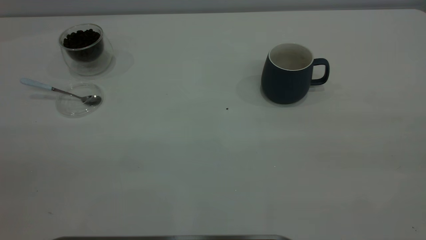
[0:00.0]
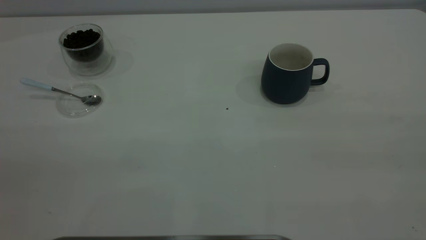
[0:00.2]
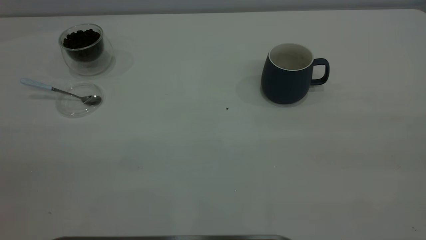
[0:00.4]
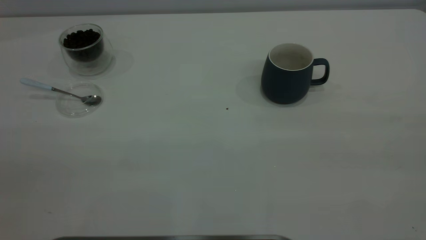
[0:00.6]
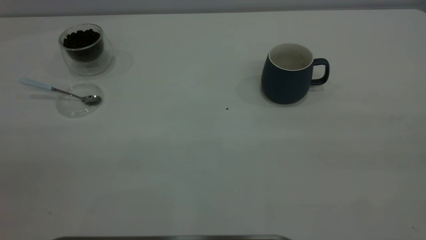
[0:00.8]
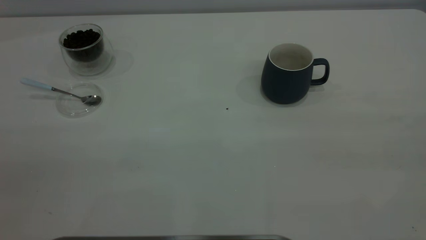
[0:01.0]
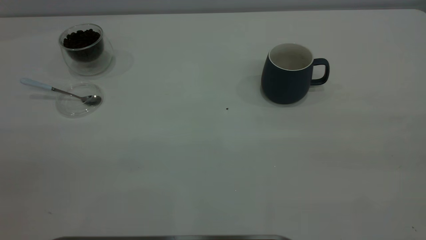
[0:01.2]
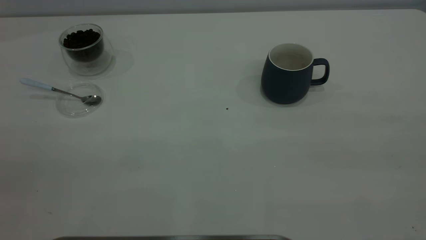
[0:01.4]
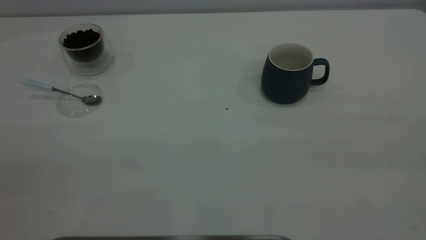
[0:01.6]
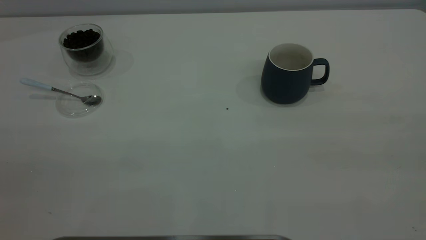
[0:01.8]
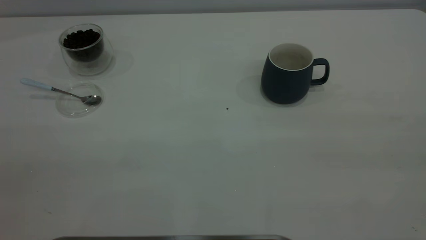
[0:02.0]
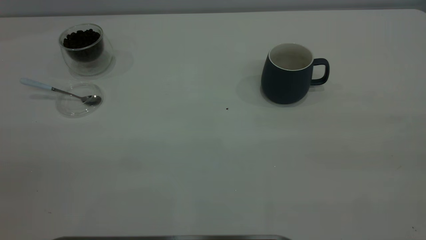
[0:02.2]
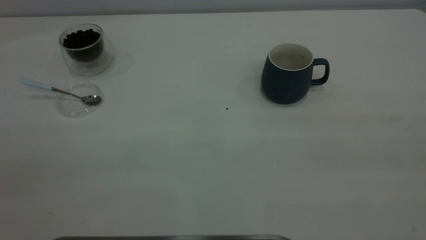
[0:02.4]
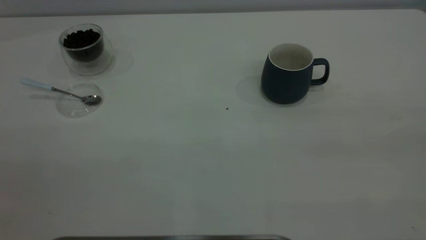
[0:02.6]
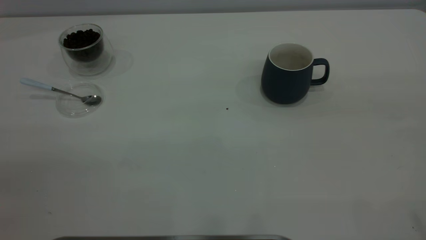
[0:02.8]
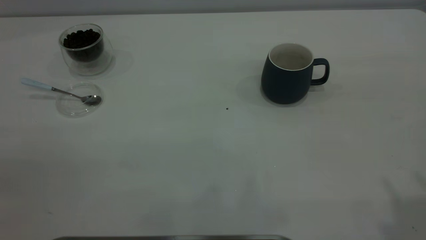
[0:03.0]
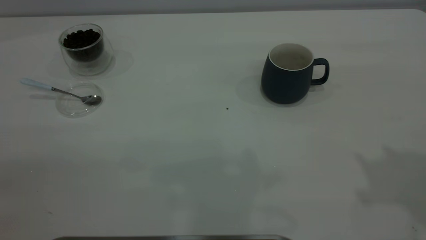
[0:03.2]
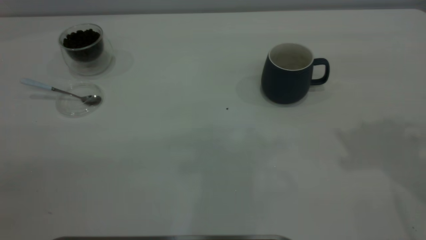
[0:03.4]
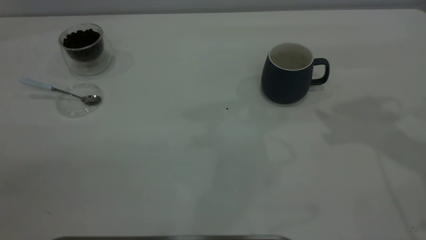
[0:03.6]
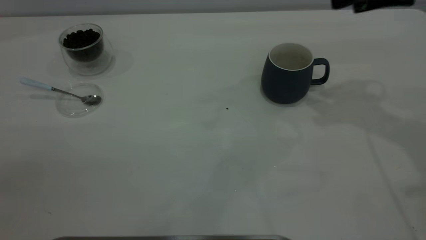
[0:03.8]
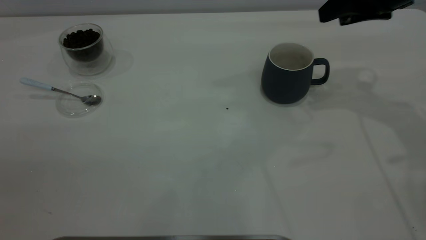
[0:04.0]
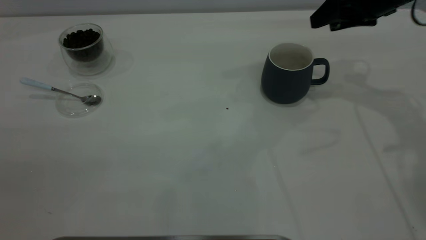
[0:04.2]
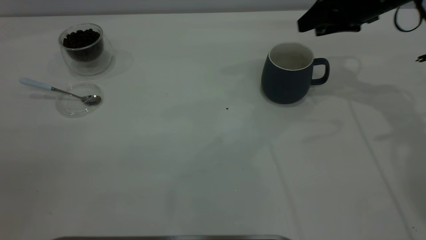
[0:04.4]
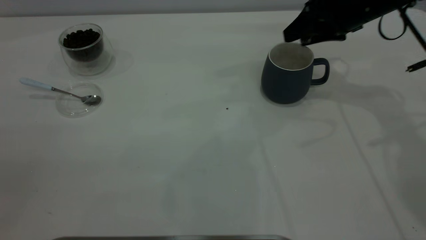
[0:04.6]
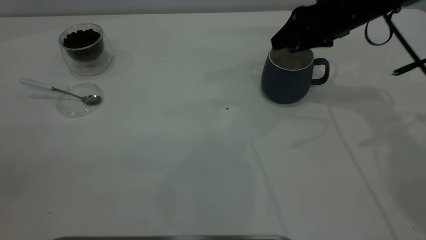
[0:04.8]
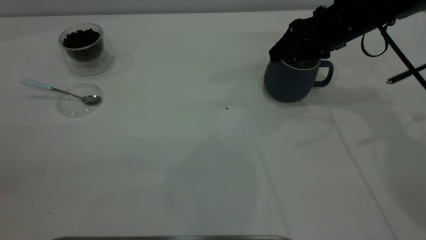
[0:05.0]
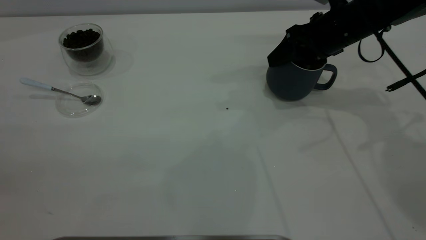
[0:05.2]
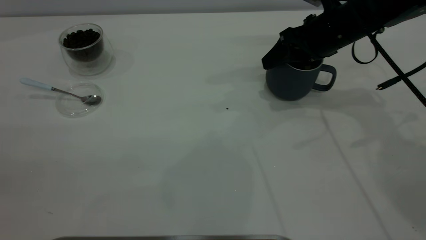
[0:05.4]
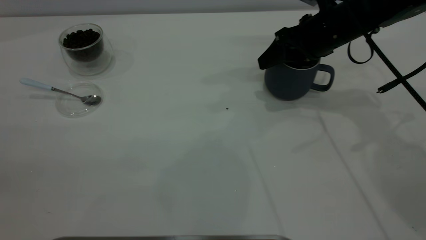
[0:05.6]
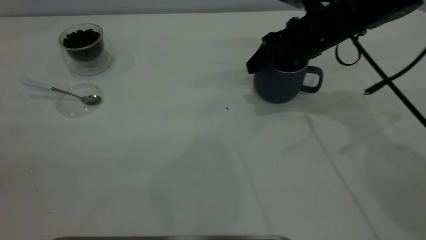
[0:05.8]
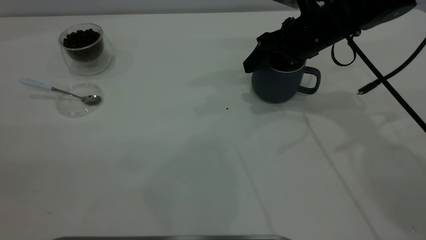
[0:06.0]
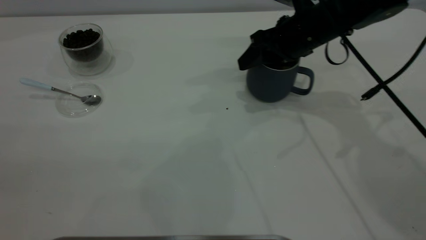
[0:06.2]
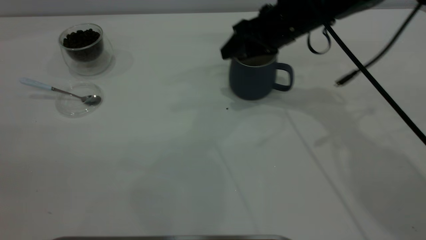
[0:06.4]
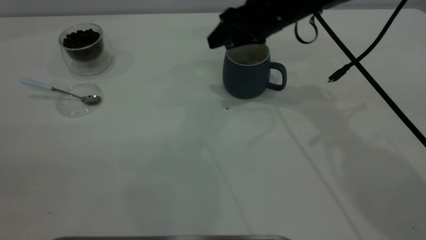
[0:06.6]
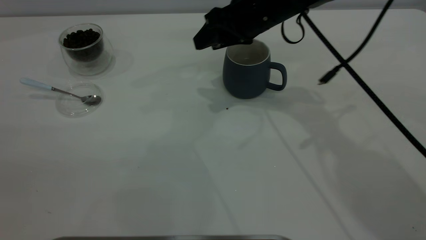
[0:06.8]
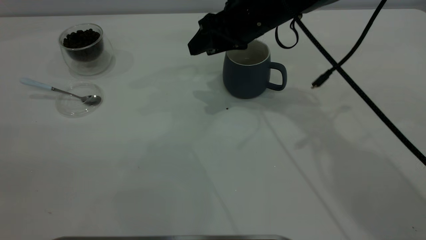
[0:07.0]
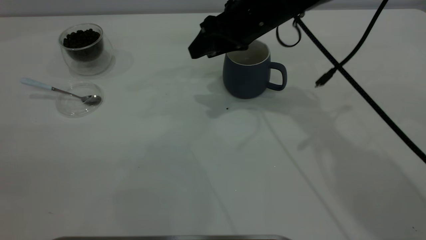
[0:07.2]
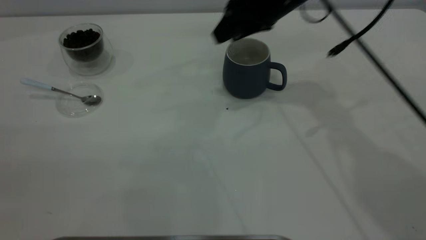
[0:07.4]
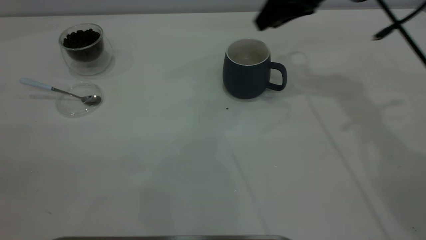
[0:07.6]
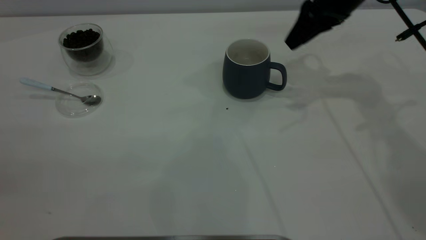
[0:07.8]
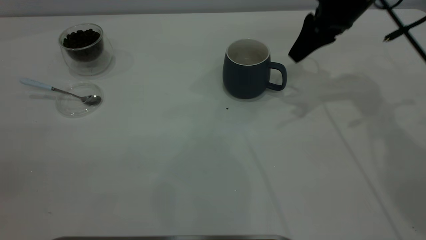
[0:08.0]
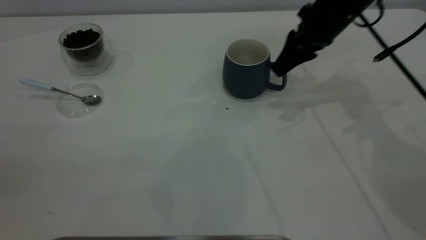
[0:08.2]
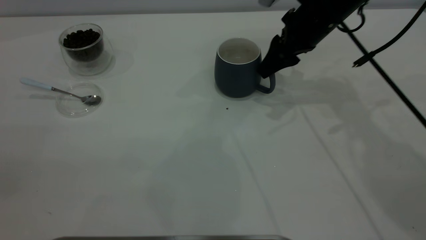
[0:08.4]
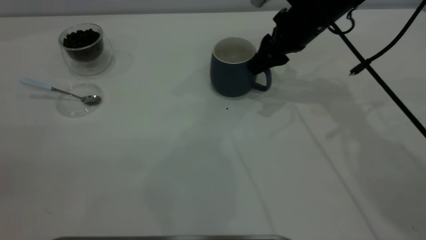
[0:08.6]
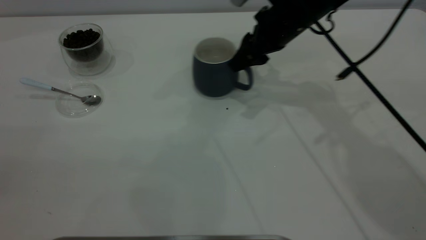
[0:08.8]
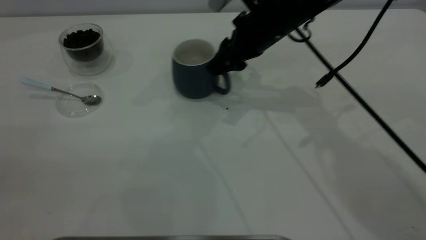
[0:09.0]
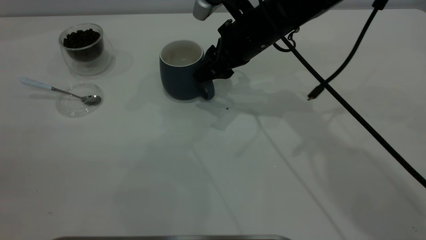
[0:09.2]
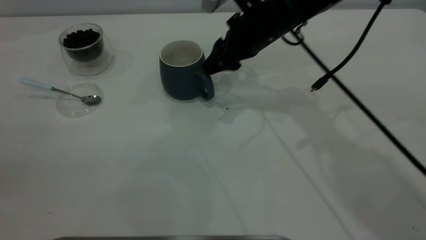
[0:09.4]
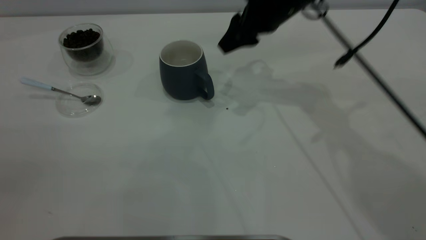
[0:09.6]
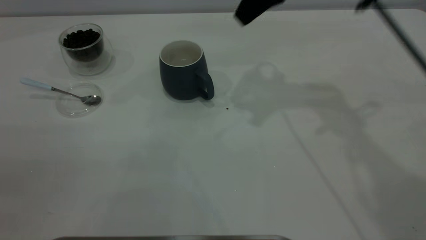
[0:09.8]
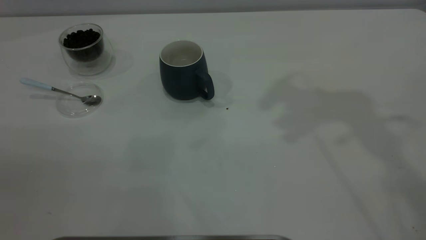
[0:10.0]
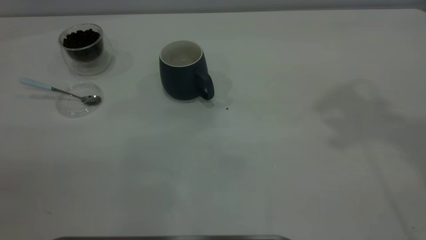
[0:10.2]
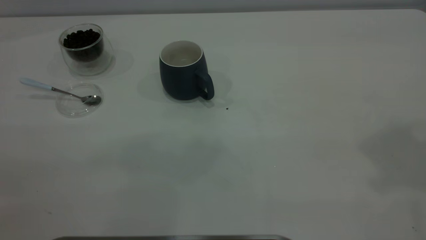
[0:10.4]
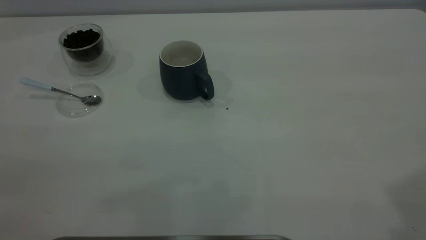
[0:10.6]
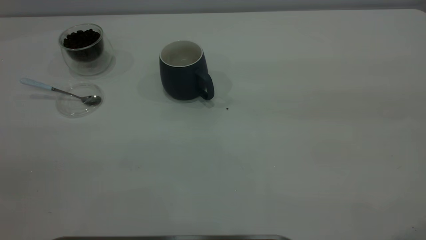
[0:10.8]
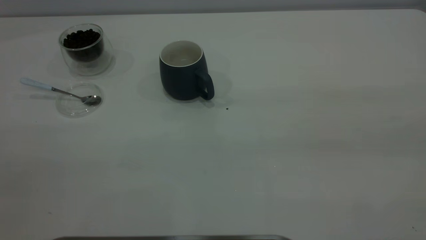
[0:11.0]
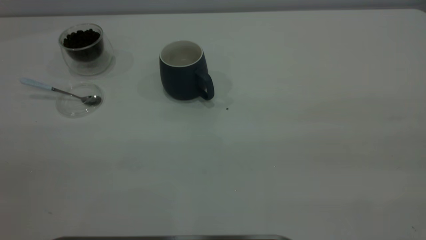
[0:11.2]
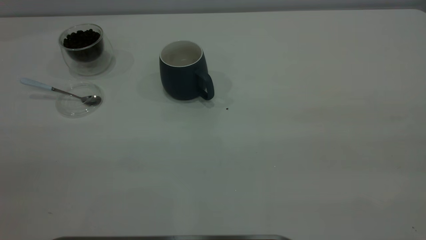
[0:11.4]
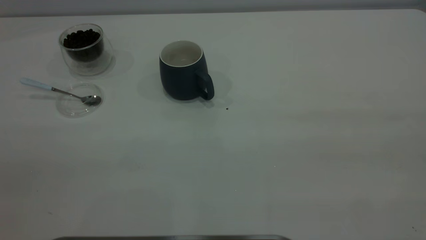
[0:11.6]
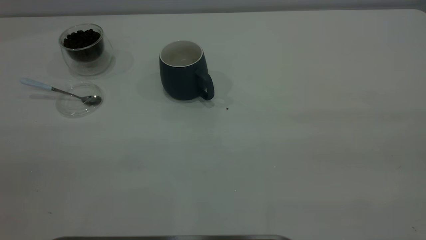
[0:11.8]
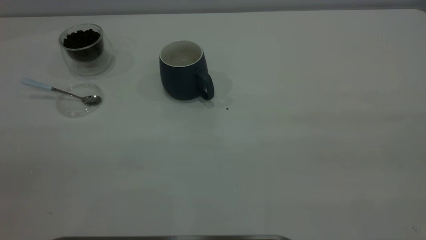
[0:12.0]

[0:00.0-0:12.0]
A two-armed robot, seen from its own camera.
Task of the whole recording: the right gripper place the grey cup in the center of the table, the left gripper take the blue spoon from the cup lid and scoop out the coffee beans from the coffee cup and put them into the grey cup, the left gripper put the spoon back into the cup lid.
Step, 0:00.0 to 0:07.4: Move the cup to the center of view.
0:00.0 to 0:01.6: The two grippers keep their place.
0:03.0 to 0:04.4: The right gripper is displaced forward and downward by approximately 35 cm.
0:04.4 to 0:06.0: The right gripper heads to the left, covering approximately 10 cm.
0:06.0 to 0:07.6: The right gripper heads upward, covering about 10 cm, and goes to the left and returns, about 10 cm each way.
0:07.6 to 0:09.0: The right gripper is displaced to the left and downward by roughly 10 cm.
0:09.0 to 0:10.4: The right gripper travels upward, to the right and backward by approximately 50 cm.

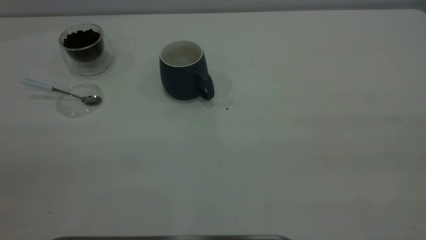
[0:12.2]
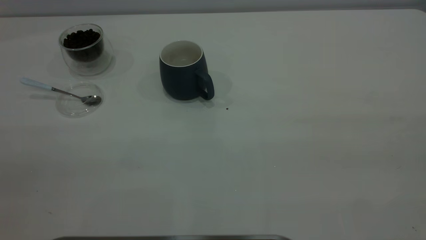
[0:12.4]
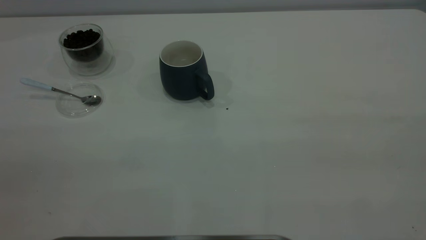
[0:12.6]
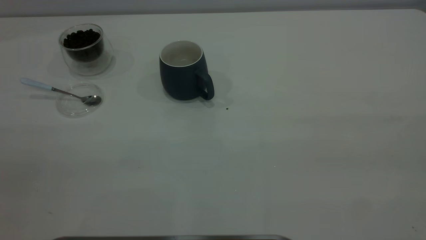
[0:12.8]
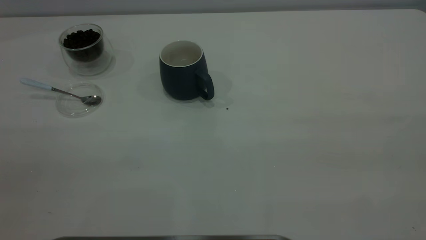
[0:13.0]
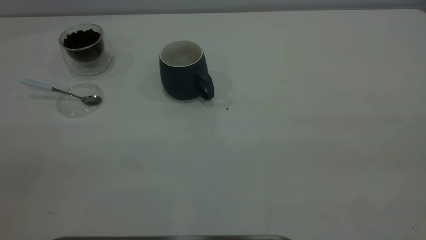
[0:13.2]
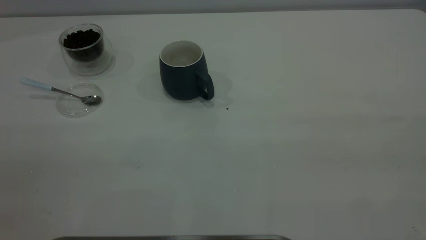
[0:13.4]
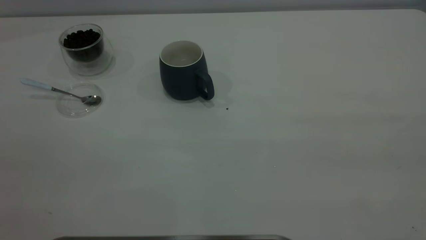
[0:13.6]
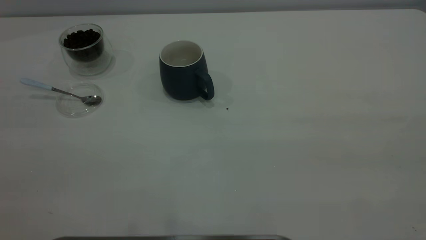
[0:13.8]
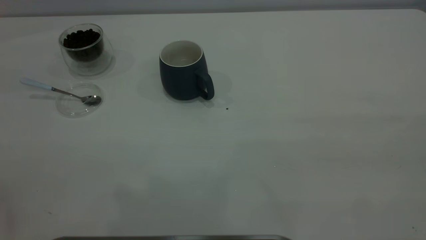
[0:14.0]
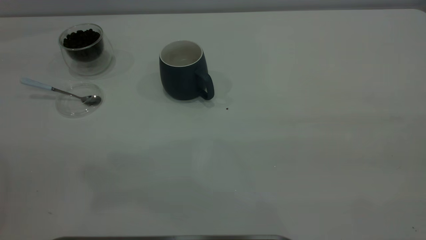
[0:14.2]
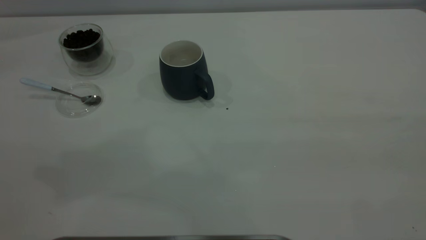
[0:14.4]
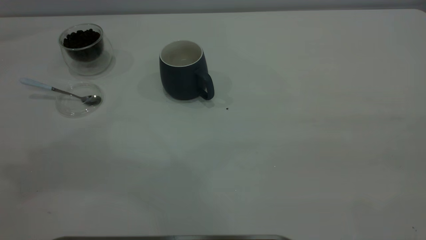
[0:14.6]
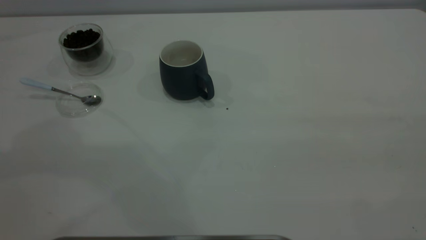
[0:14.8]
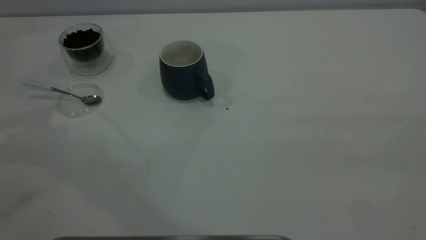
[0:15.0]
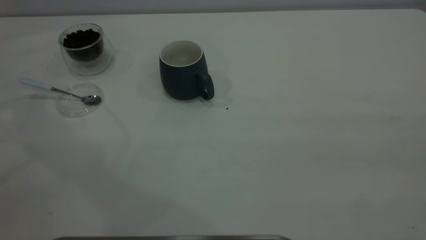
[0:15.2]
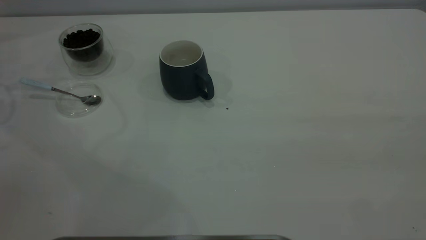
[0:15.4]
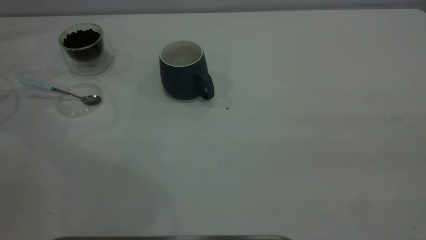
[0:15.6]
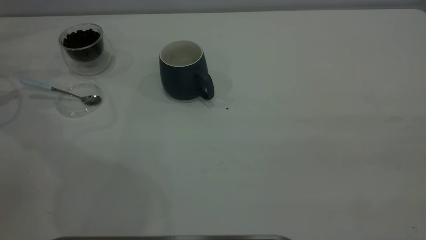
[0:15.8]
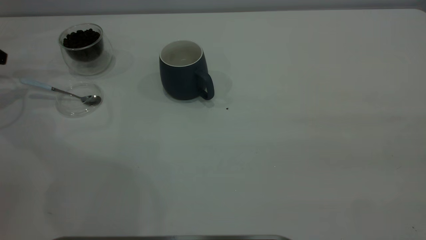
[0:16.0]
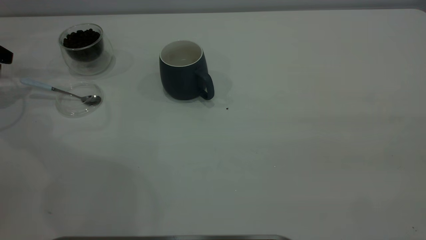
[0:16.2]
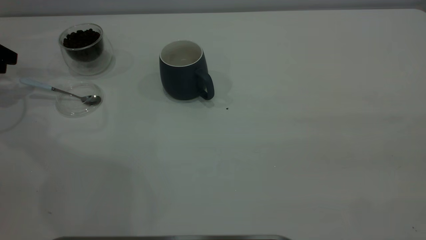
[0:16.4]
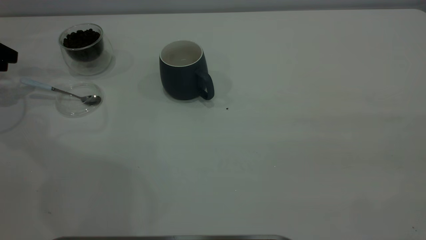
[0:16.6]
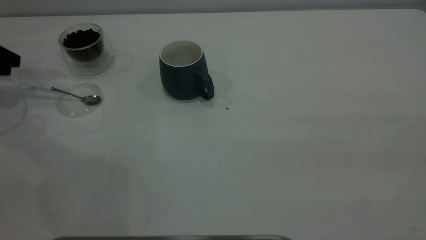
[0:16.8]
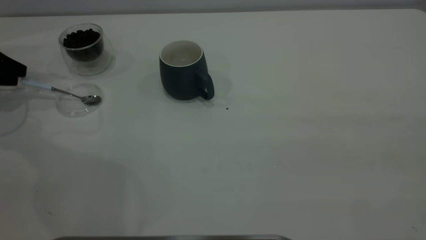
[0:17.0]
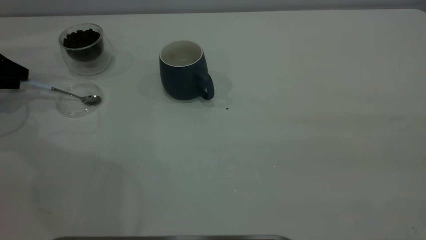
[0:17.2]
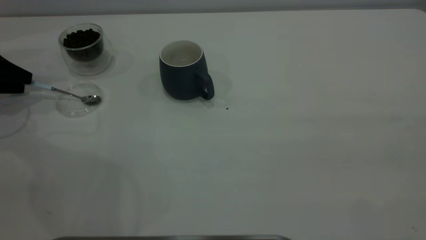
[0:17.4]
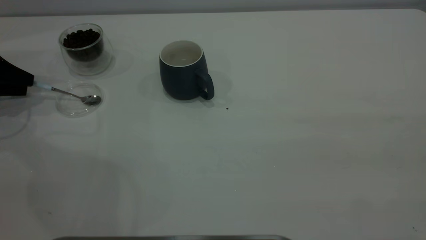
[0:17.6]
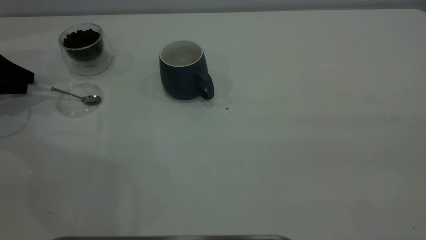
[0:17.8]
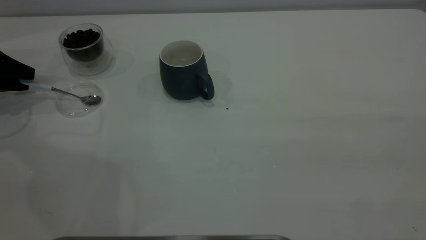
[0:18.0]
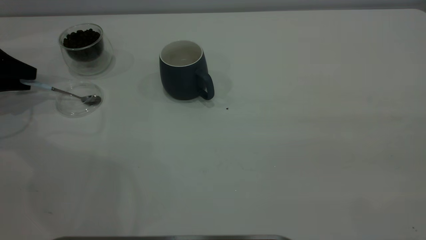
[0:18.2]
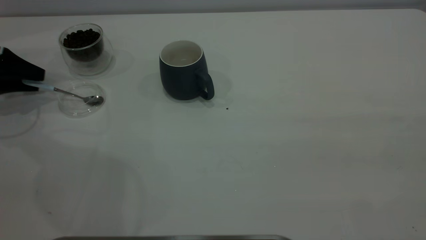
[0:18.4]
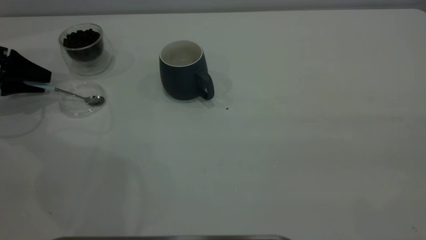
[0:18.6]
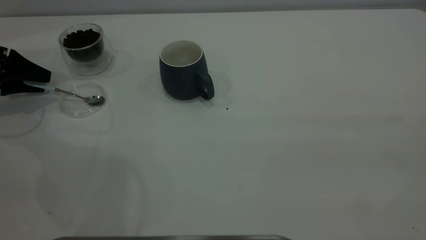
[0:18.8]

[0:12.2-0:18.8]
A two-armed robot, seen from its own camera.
Task of the whole recording: the right gripper place the grey cup in the center of the table, the left gripper take the blue spoon from the cup lid and scoop out the coffee beans from the coffee cup and put them into the grey cup, the left gripper put the spoon back into the cup lid.
0:15.4 to 0:17.2: The left gripper travels downward by about 10 cm.
0:17.2 to 0:18.8: There are only small adjustments of the grippers.
